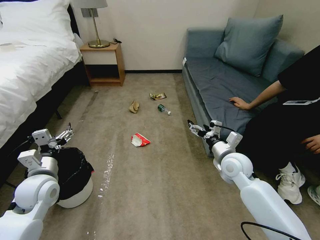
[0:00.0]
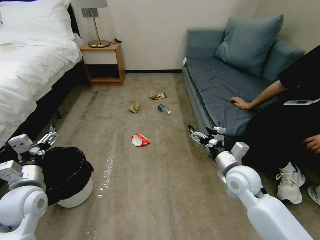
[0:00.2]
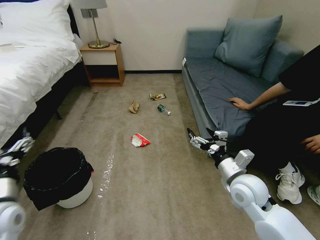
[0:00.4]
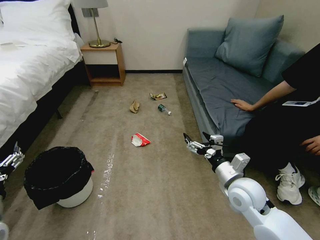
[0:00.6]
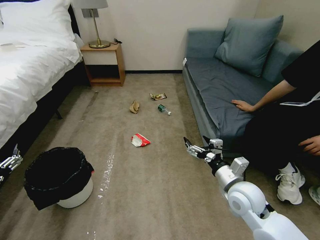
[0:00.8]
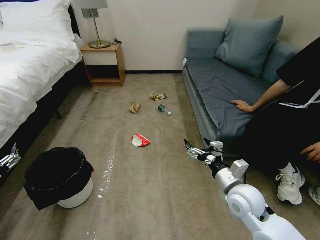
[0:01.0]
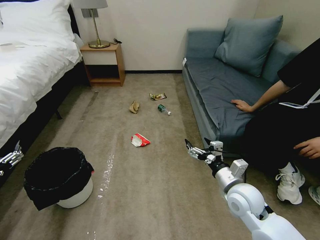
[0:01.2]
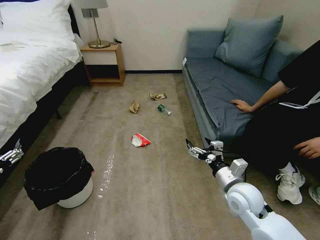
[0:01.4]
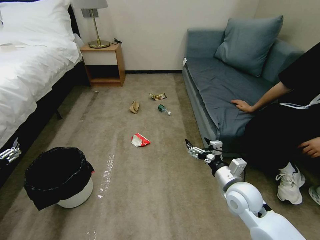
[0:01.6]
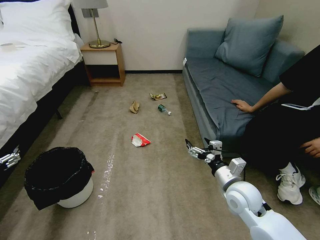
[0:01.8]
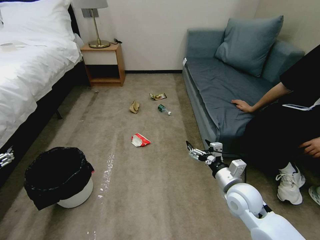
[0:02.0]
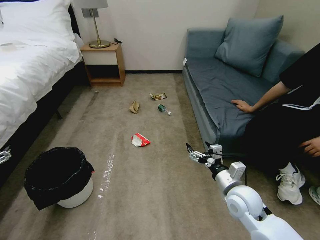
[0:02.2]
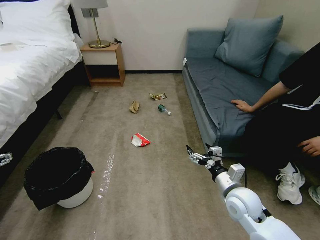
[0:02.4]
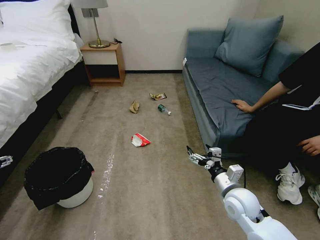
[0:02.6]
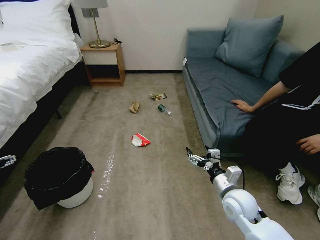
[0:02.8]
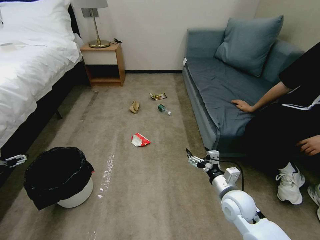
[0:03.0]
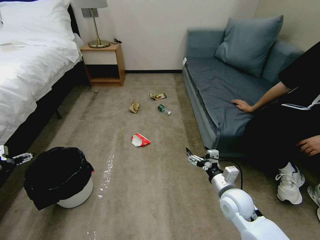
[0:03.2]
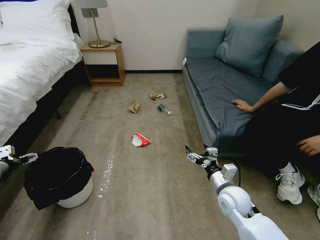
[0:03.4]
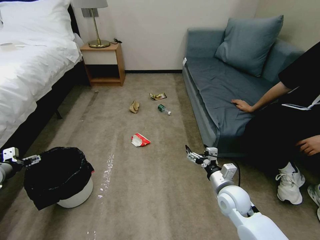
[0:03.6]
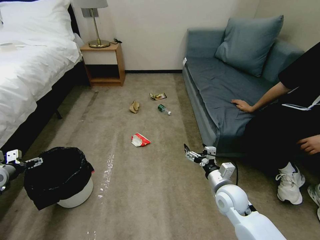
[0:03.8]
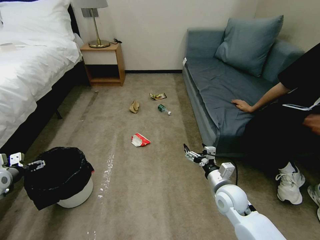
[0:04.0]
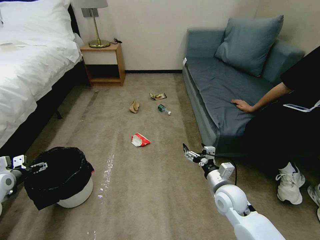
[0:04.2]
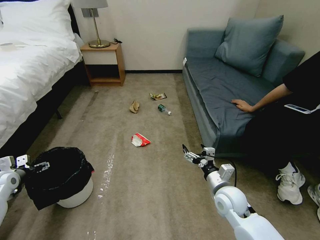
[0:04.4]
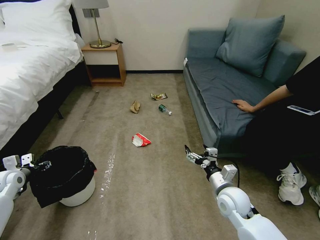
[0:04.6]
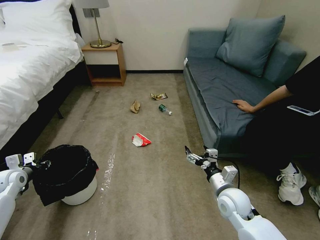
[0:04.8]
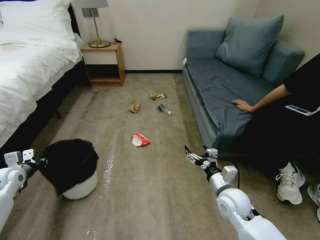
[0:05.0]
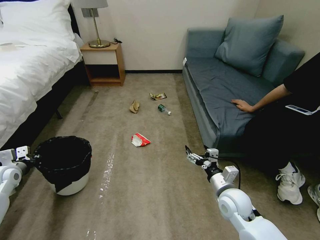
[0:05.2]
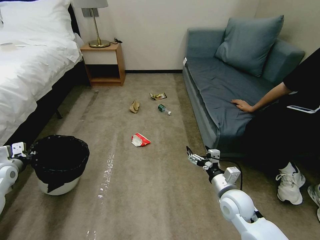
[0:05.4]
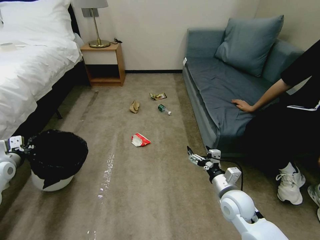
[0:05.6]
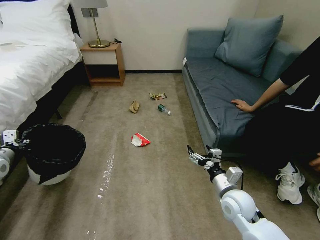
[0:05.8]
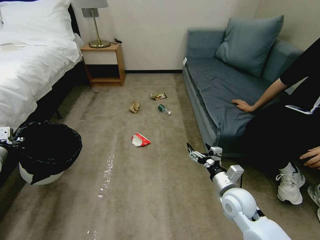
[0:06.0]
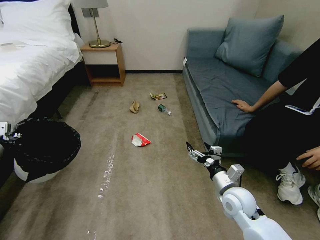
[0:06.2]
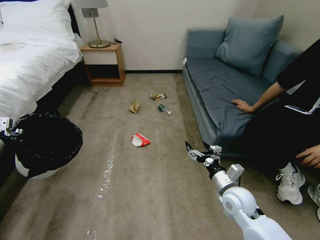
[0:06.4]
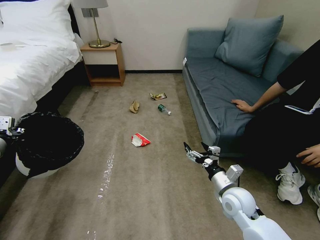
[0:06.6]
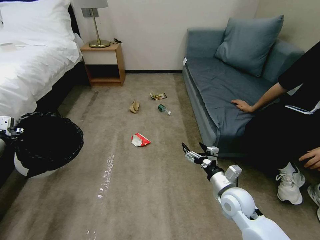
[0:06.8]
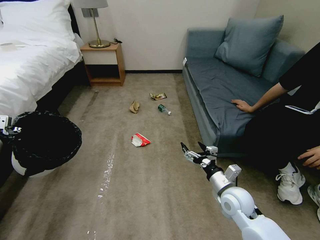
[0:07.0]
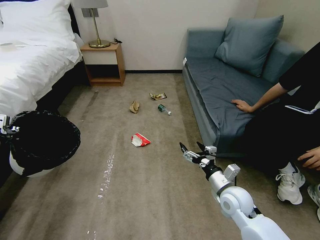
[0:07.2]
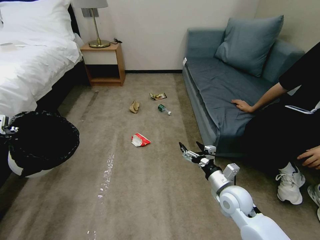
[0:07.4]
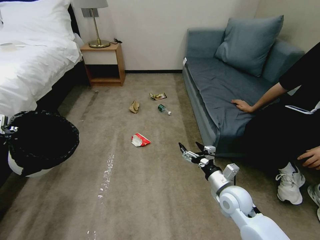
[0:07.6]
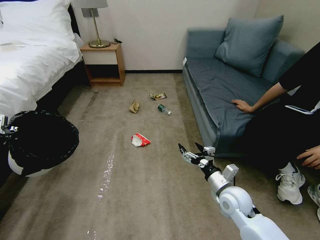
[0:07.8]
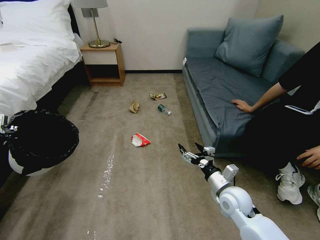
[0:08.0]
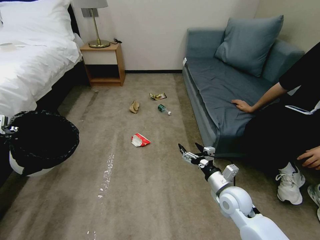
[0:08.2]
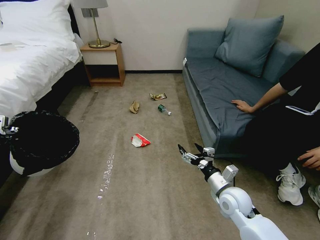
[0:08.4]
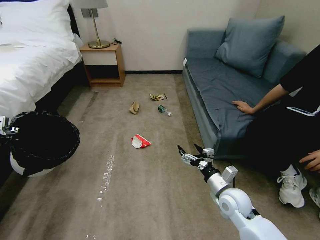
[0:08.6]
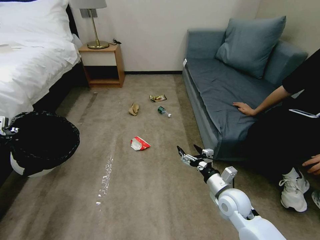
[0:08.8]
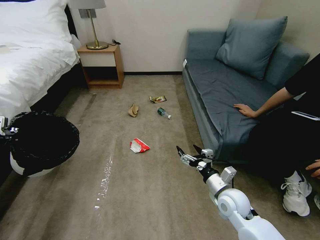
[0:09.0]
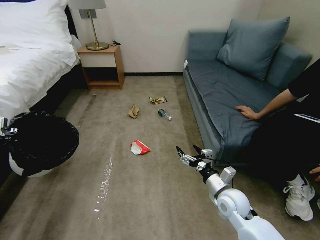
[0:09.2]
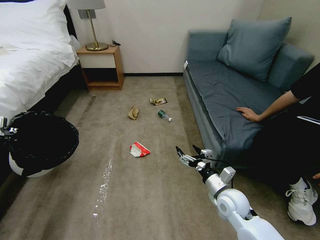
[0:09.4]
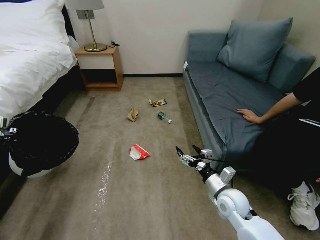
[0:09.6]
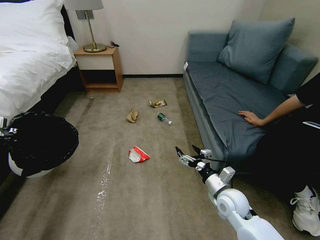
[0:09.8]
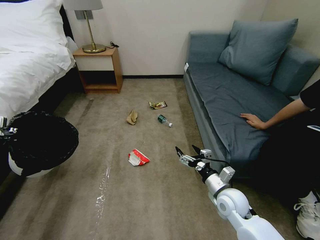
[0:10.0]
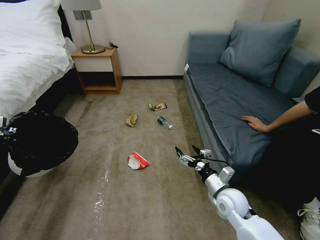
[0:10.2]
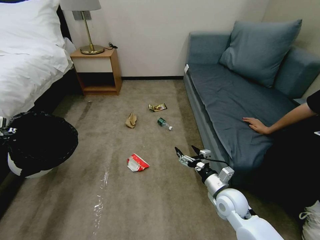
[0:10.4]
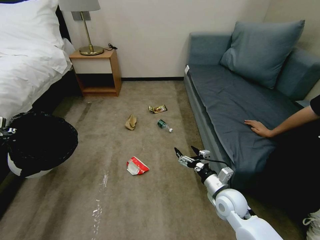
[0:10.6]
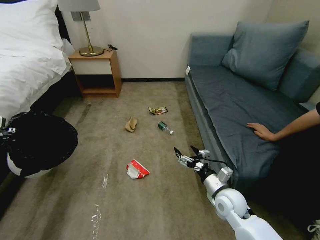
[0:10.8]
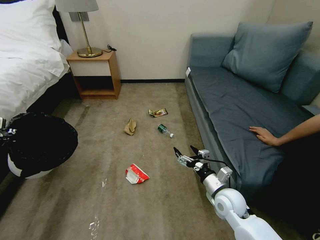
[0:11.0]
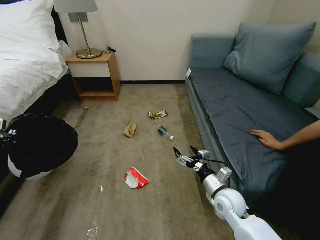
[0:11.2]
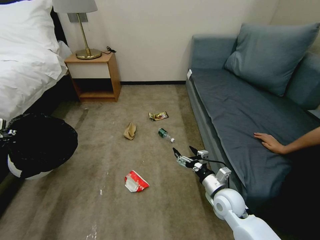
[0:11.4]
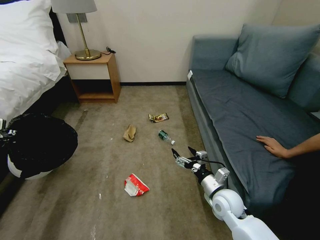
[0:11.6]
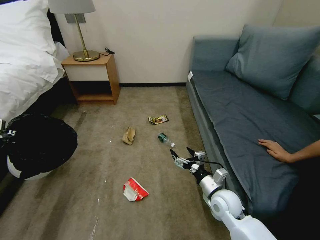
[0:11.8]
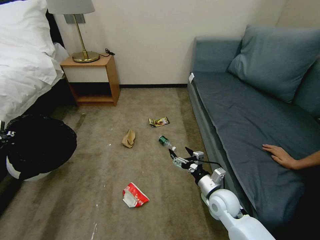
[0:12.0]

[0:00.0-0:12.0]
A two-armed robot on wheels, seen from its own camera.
Task of the whole recording: Pick up the trash bin, then pick up the garbage on the floor and place it into the trash bin.
0:01.6 to 0:03.0: The left gripper goes some 15 cm forward and to the left.
0:03.0 to 0:04.4: The left gripper goes about 10 cm downward.
0:04.4 to 0:06.0: The left gripper heads upward, covering roughly 10 cm, and closes.
0:06.0 to 0:07.6: The left gripper moves upward, about 5 cm.
0:07.6 to 0:09.0: Neither gripper changes place.

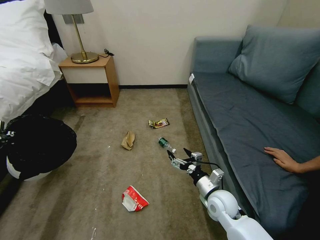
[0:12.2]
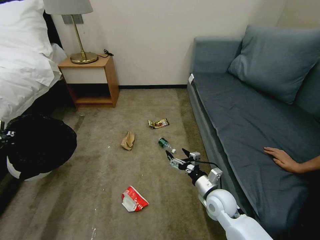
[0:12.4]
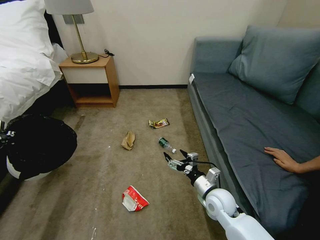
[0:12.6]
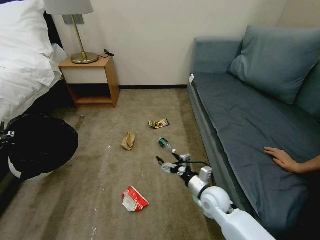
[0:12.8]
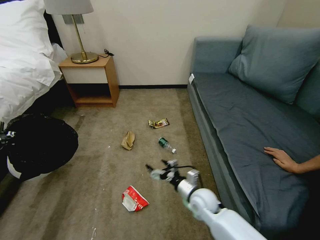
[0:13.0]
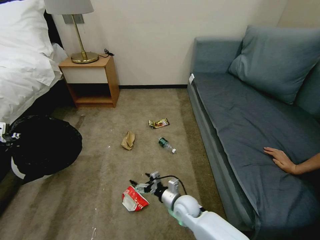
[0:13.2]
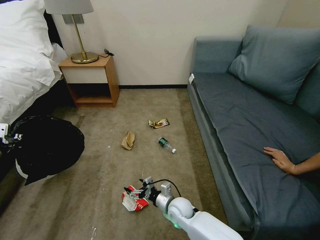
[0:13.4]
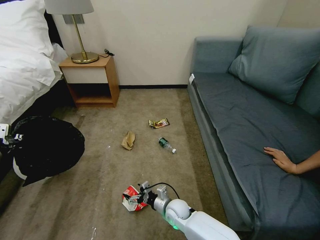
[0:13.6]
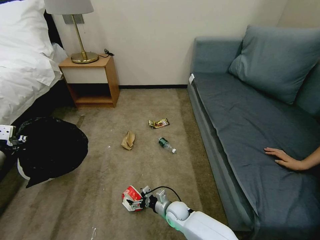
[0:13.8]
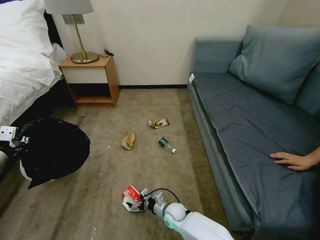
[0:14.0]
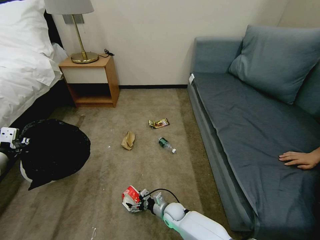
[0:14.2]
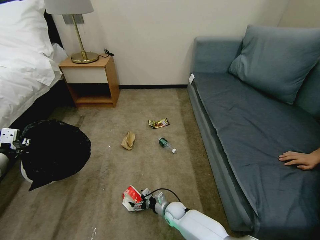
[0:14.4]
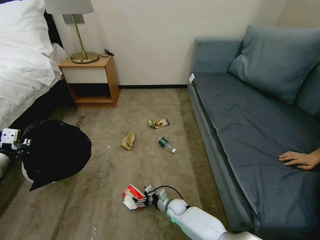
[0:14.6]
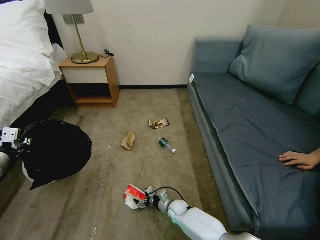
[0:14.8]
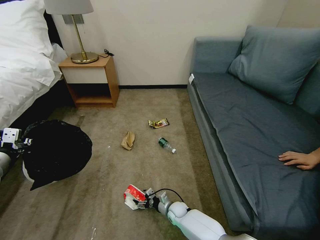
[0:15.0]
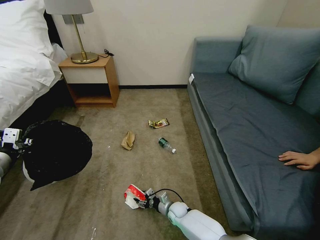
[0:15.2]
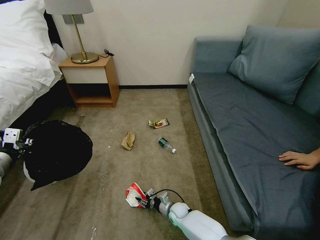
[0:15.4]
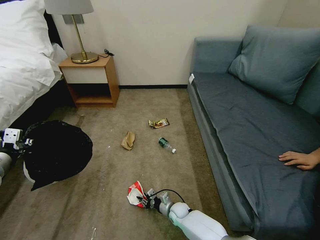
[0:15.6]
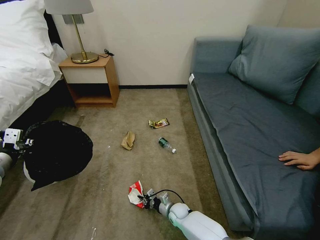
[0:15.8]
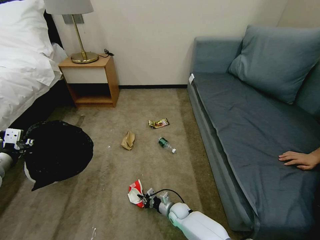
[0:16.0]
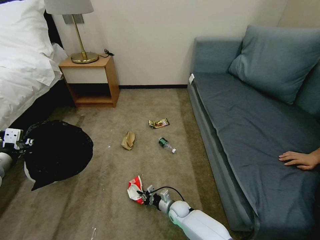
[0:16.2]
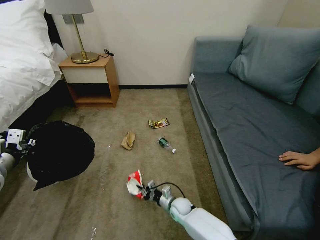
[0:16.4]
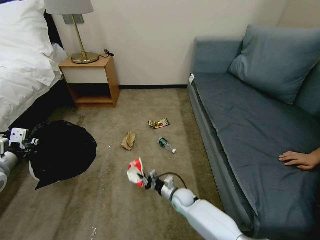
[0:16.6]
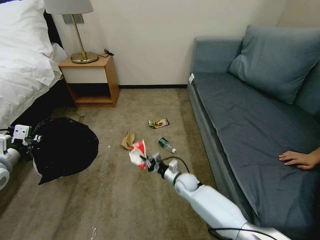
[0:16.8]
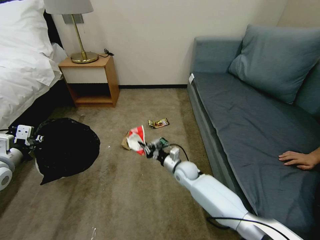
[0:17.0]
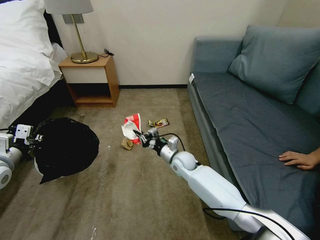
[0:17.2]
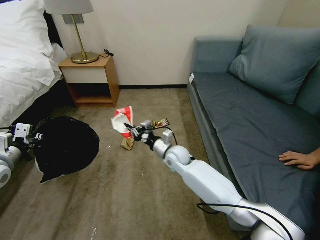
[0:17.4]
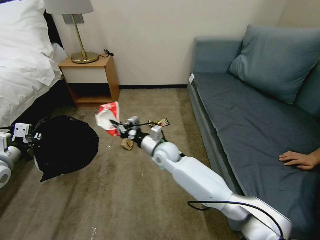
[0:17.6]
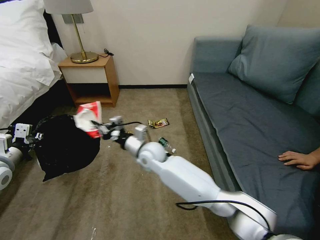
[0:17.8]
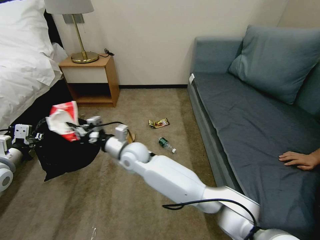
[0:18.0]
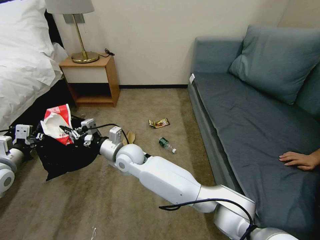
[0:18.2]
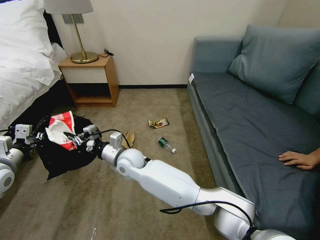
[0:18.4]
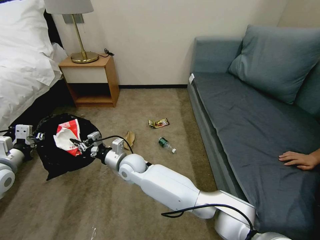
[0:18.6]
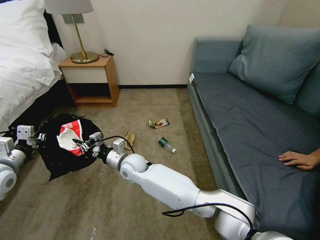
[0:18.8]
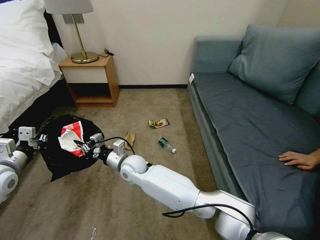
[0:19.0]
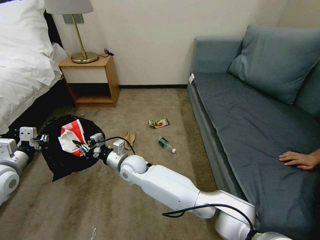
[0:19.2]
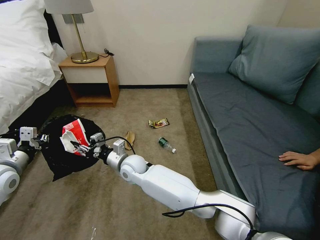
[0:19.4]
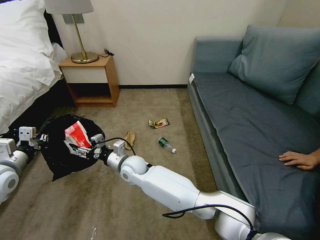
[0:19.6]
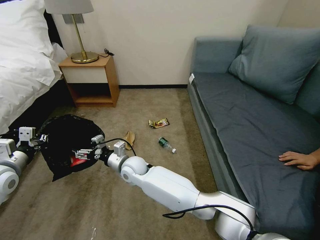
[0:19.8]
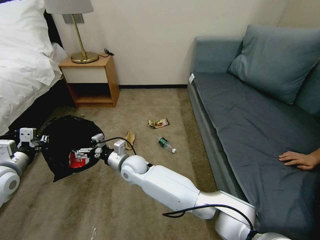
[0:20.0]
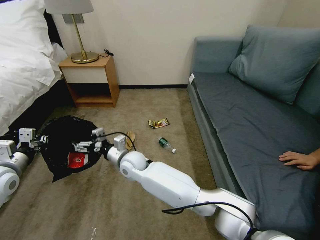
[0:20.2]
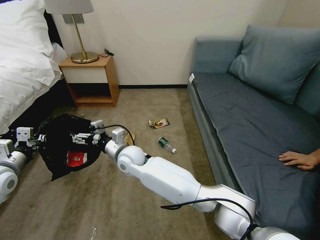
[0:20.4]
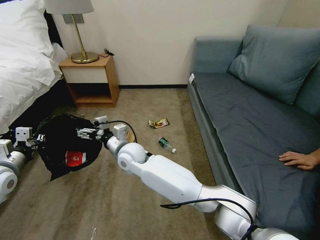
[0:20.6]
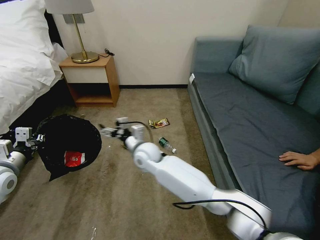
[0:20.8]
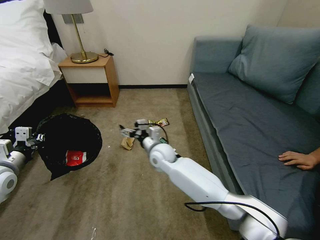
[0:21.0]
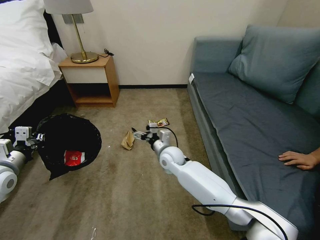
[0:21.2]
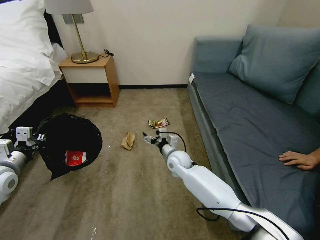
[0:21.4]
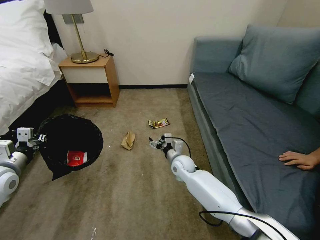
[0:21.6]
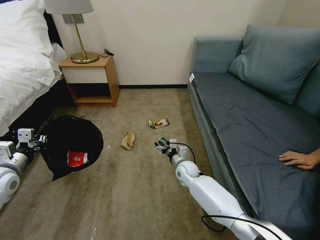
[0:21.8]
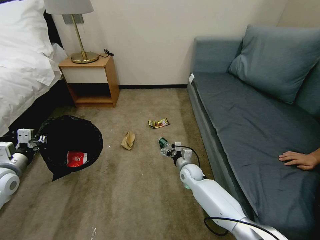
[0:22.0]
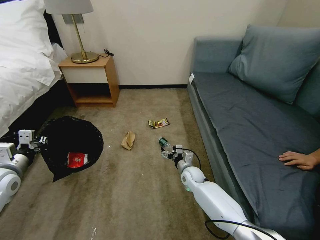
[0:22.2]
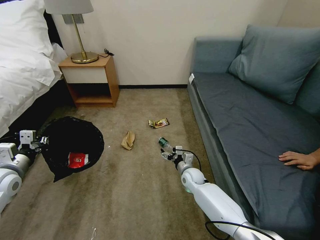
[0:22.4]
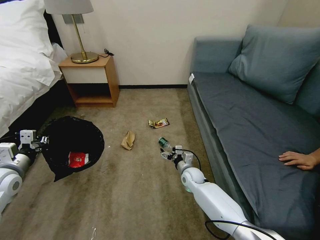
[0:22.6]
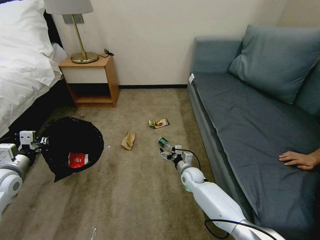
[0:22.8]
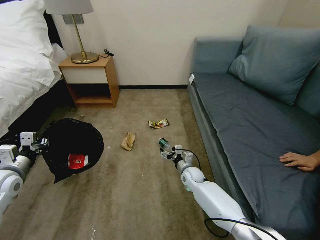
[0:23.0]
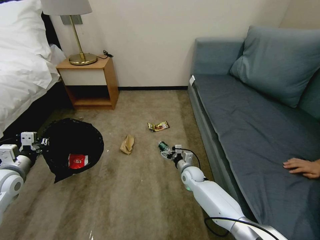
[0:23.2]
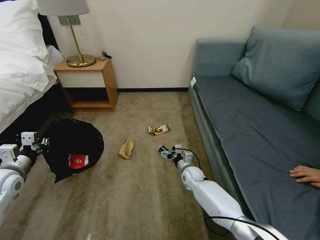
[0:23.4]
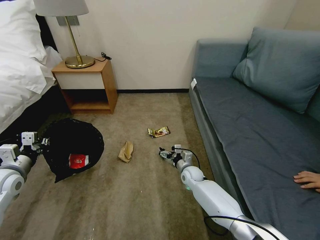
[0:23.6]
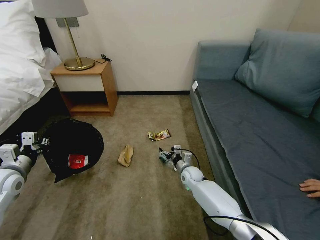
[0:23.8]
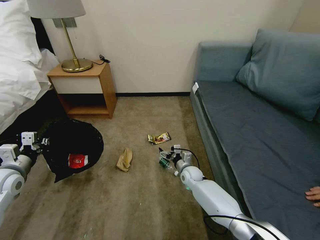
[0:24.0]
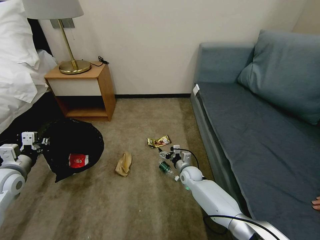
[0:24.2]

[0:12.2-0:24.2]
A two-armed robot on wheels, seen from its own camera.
Task of the whole recording: Pick up the trash bin, then pick up the garbage on the floor and place it into the trash bin.
0:12.2 to 0:13.8: The right gripper goes some 20 cm downward and to the left; the left gripper shifts by approximately 5 cm.
0:13.8 to 0:15.2: The right gripper is displaced downward by some 5 cm.
0:15.2 to 0:16.6: The right gripper moves upward, some 10 cm, and closes its fingers.
0:16.6 to 0:18.2: The right gripper travels upward and to the left by some 35 cm.
0:18.2 to 0:19.8: The right gripper shifts about 5 cm downward, and opens up.
0:19.8 to 0:21.2: The right gripper travels to the right by some 15 cm.
0:21.2 to 0:22.6: The right gripper travels downward and to the right by about 15 cm.
